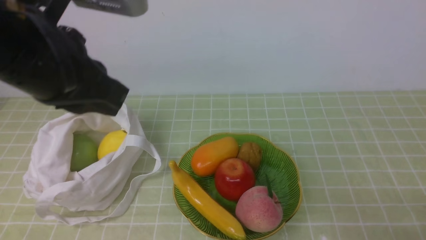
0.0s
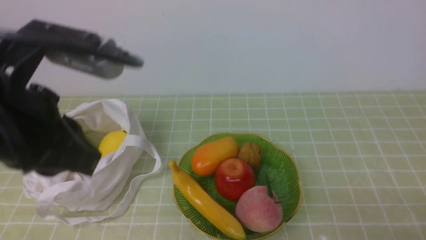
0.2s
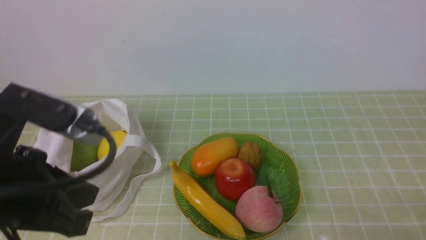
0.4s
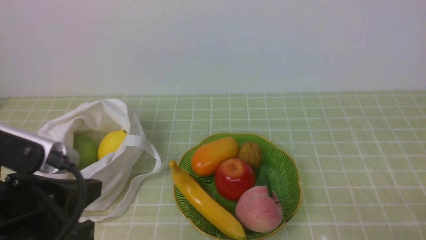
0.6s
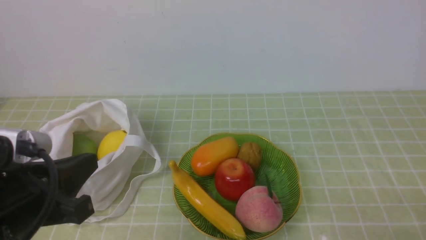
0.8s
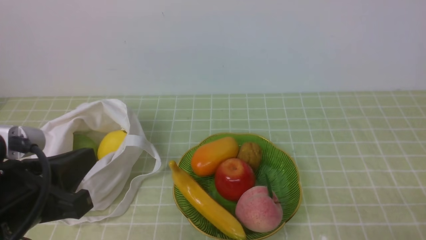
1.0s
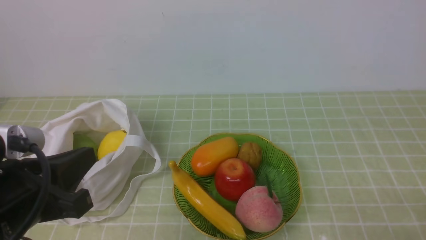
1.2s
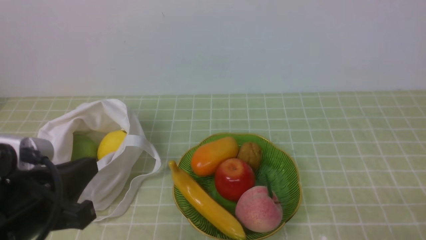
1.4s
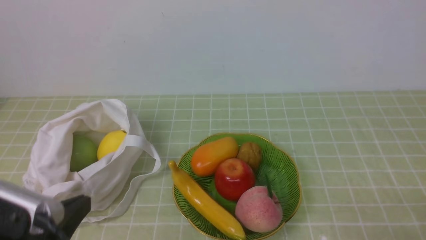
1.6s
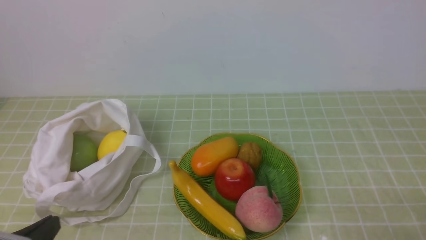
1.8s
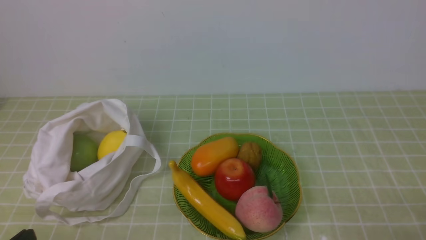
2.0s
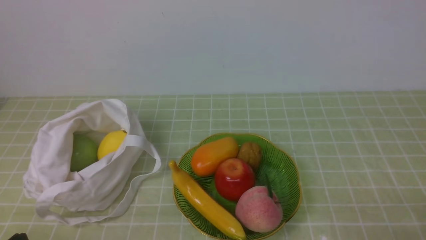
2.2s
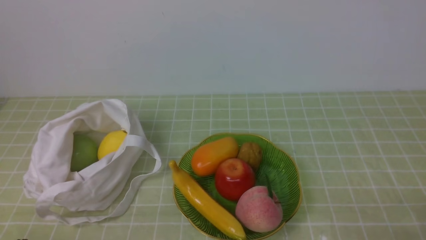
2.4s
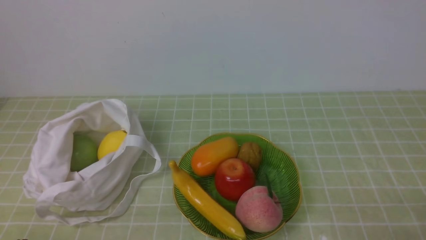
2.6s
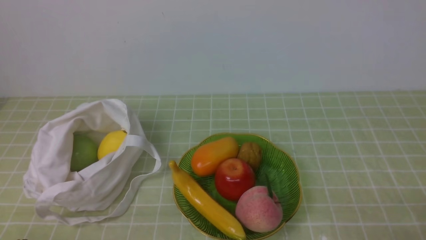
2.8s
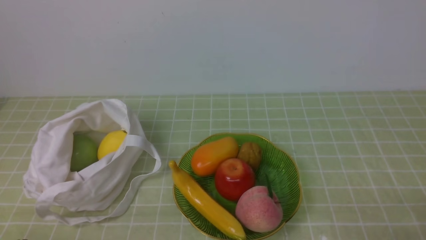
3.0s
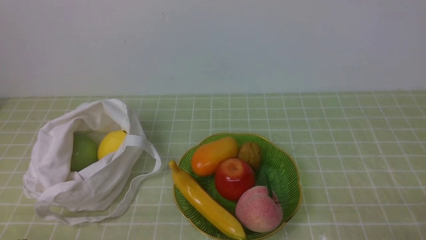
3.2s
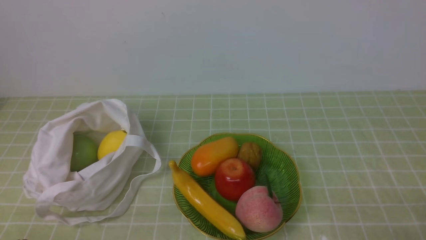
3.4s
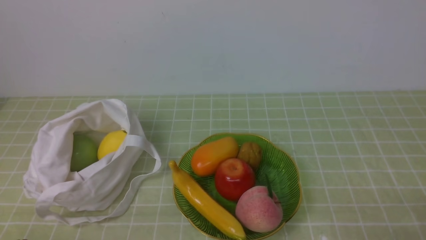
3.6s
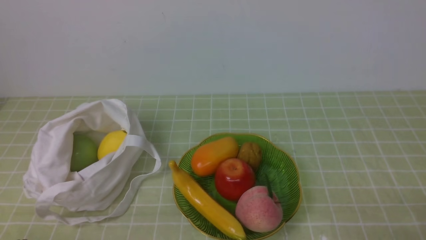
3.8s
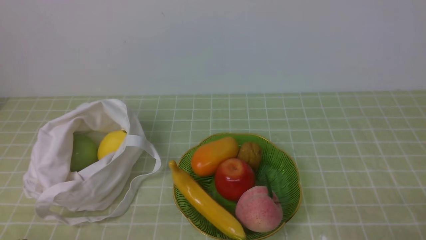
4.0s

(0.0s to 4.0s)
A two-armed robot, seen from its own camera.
0.0s - 1.4s: The left gripper shifts some 15 cm downward and backward.
1.4s - 2.6s: The left gripper moves downward and backward, roughly 10 cm.
2.6s - 4.0s: Both grippers stay put.

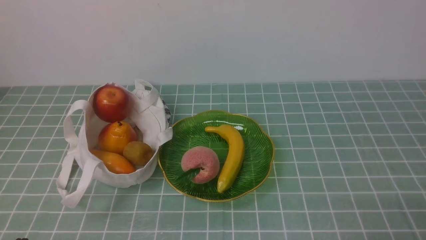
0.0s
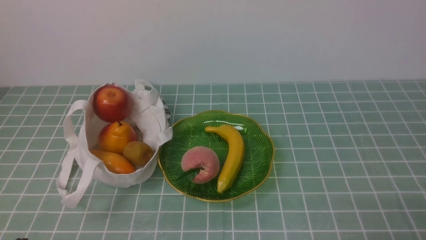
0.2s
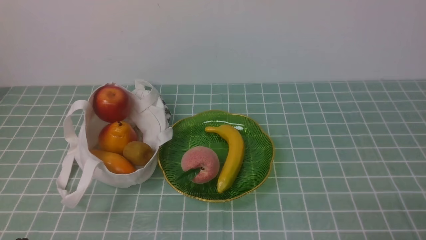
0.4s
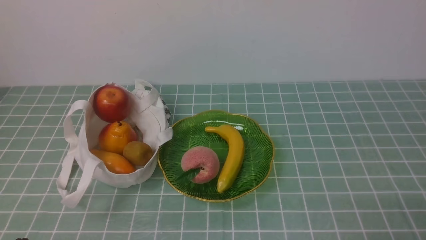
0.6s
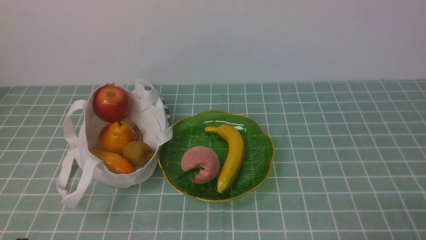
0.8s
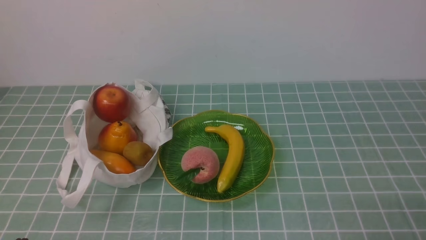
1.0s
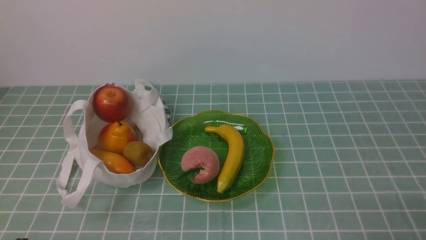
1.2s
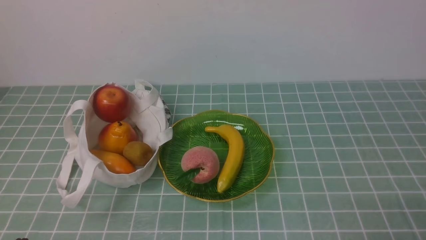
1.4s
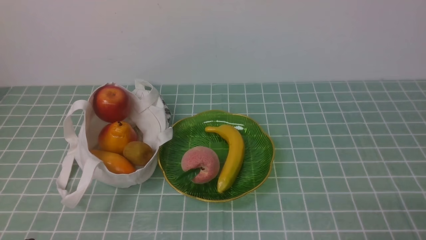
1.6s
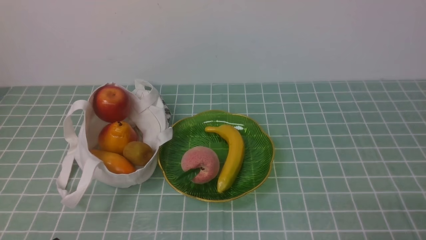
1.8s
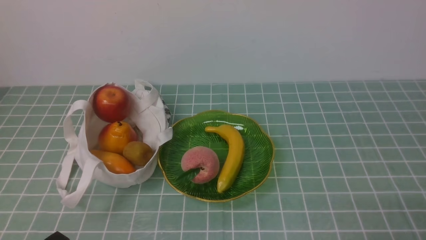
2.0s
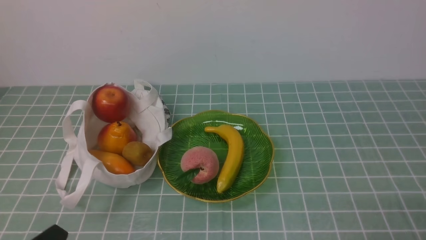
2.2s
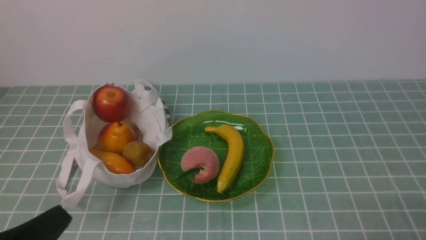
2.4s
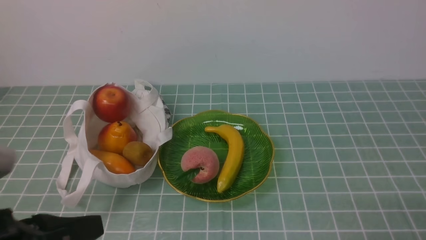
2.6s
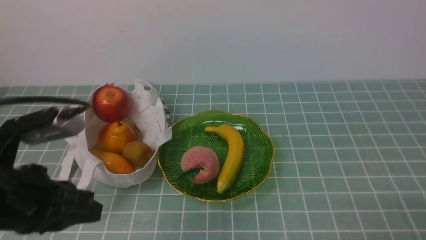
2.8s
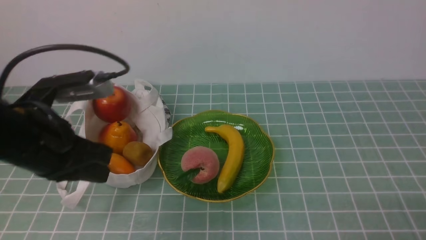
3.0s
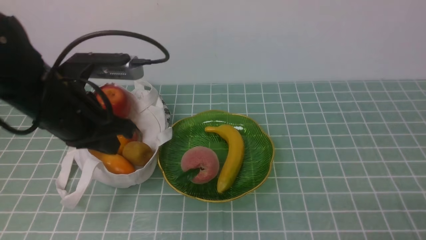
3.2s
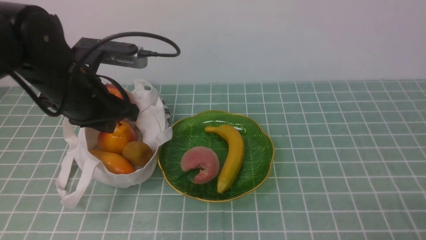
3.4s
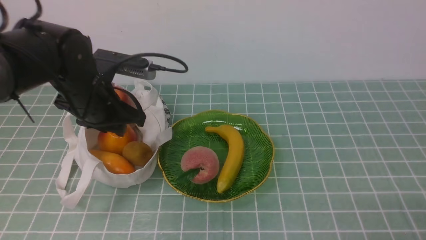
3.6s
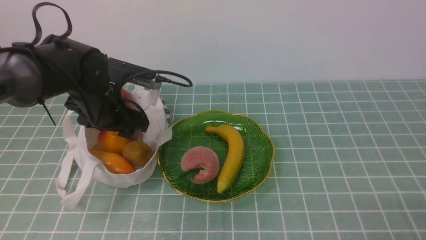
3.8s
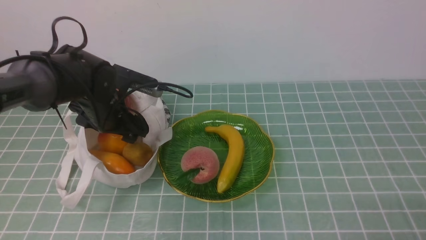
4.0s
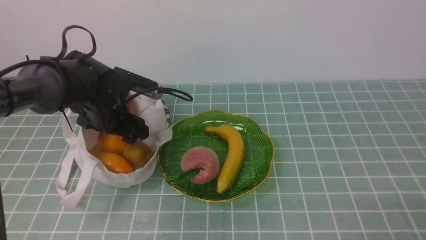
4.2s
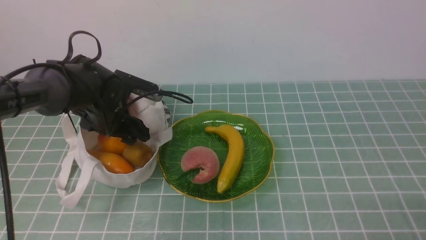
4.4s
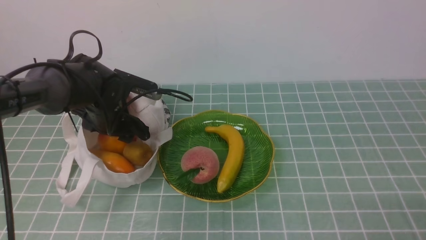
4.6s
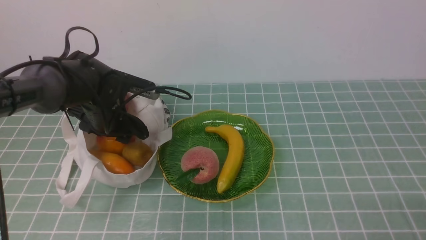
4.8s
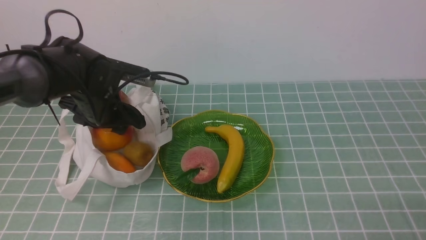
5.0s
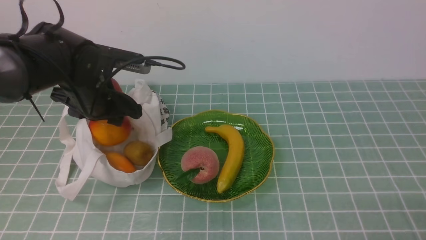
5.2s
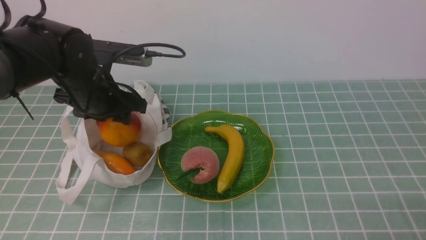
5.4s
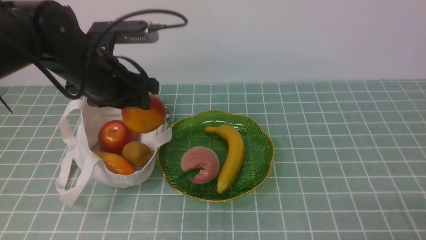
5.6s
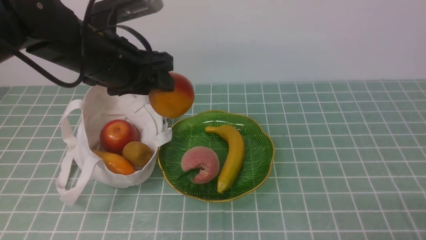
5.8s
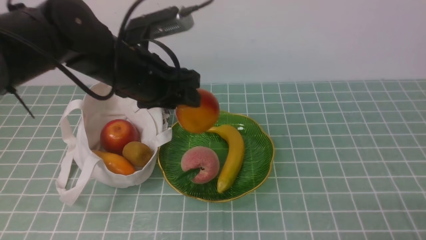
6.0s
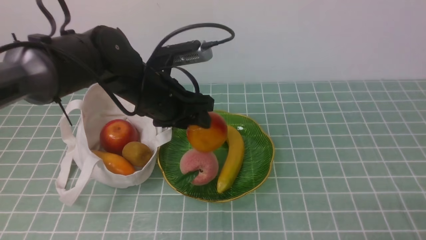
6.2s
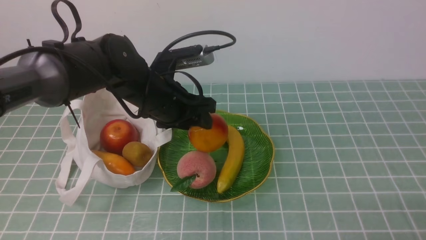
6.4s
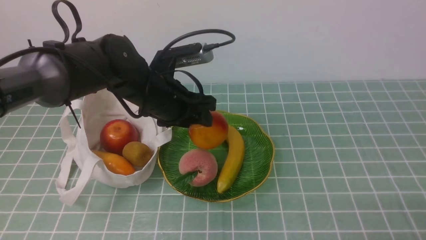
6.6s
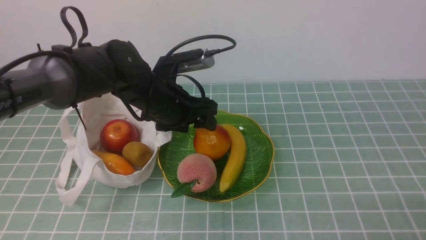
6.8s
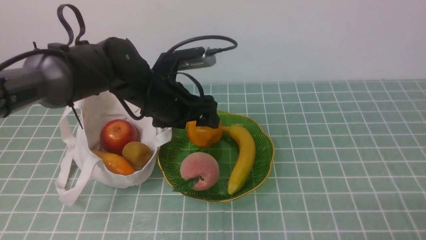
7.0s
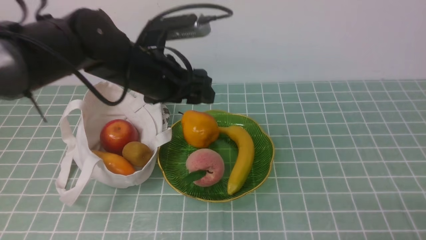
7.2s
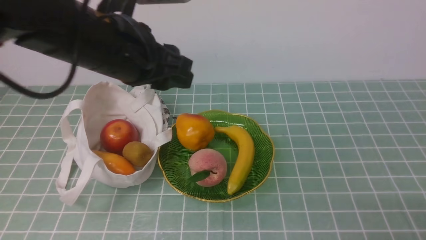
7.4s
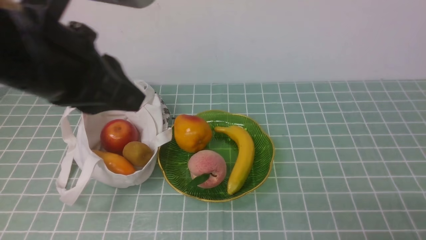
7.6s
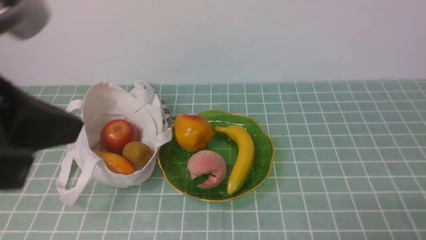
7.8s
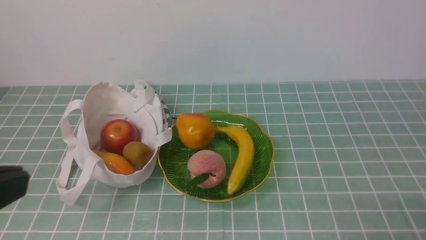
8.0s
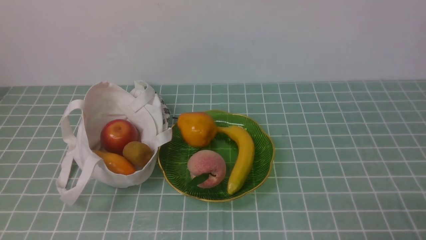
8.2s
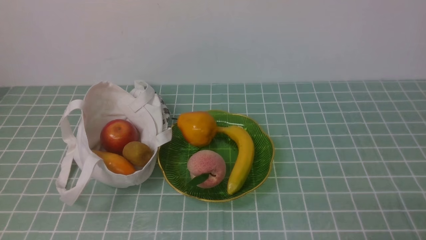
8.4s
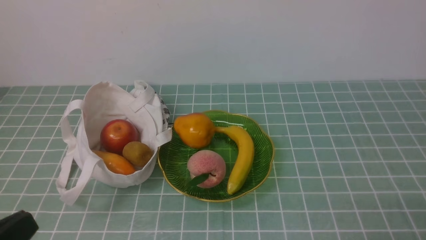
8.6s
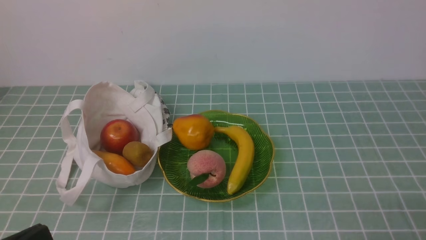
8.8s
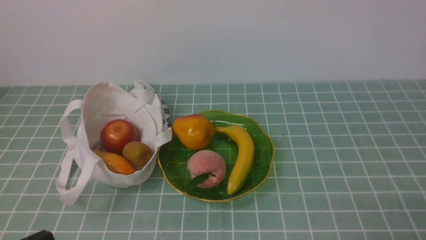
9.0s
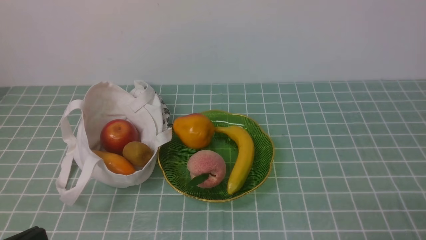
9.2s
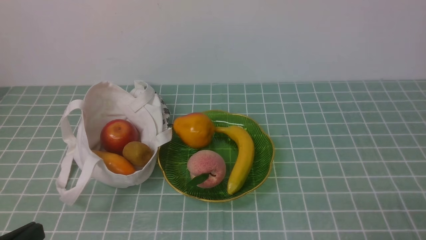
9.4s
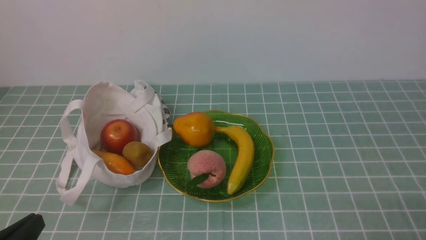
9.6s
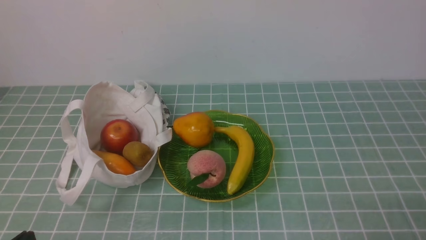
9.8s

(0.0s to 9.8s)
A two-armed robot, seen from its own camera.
Step, 0.0s - 5.0s: use the left arm to grab a pear from the bag.
Step, 5.2s - 7.0s: use the left arm to put the pear into the empty plate on the right.
1.4s - 2.8s: The left gripper is displaced upward and forward by roughly 15 cm.
2.8s - 4.2s: The left gripper shifts some 25 cm forward, and opens.
4.2s - 5.6s: The left gripper heads upward, covering approximately 10 cm.
5.6s - 7.0s: The left gripper moves to the right, approximately 10 cm.
7.0s - 8.4s: The left gripper goes roughly 40 cm backward and to the left, and closes up.

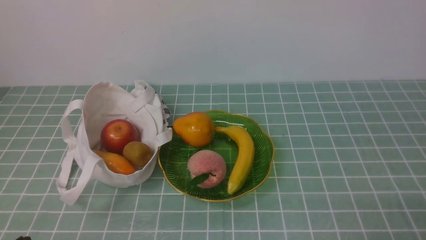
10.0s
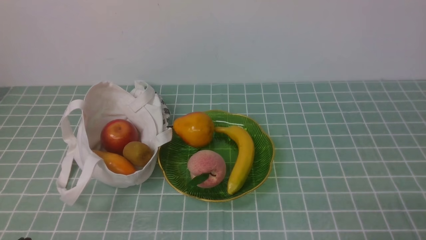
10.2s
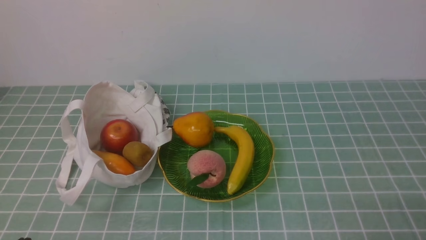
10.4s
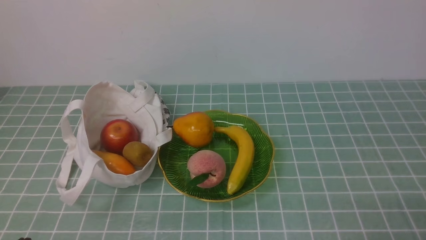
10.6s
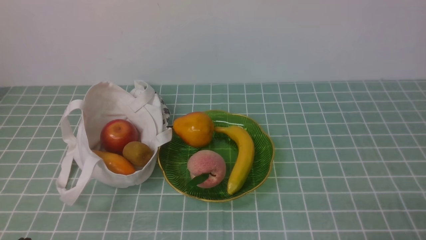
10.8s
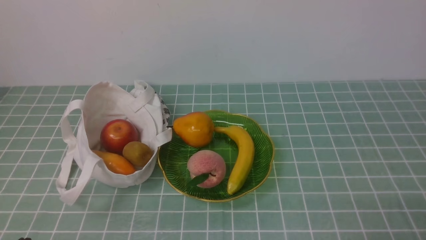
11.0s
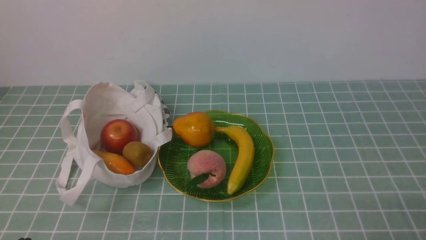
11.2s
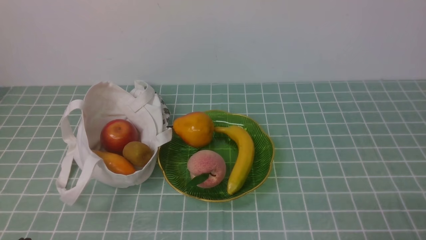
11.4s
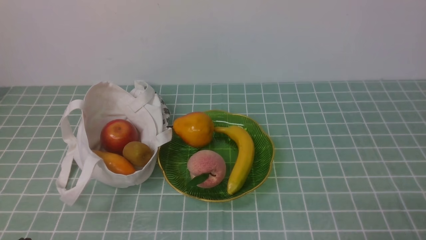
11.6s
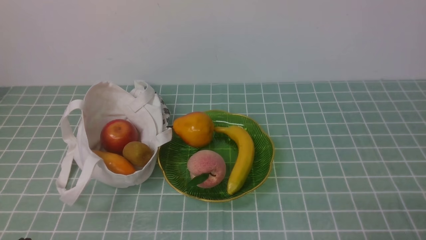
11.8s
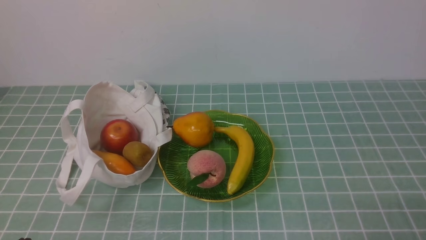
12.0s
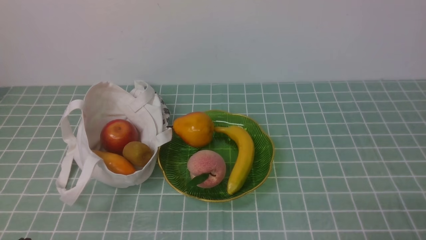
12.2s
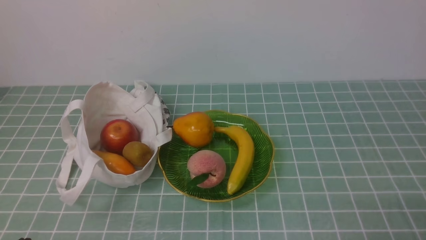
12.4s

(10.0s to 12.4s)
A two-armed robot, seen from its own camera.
10.0s - 12.4s: Both grippers stay put.
